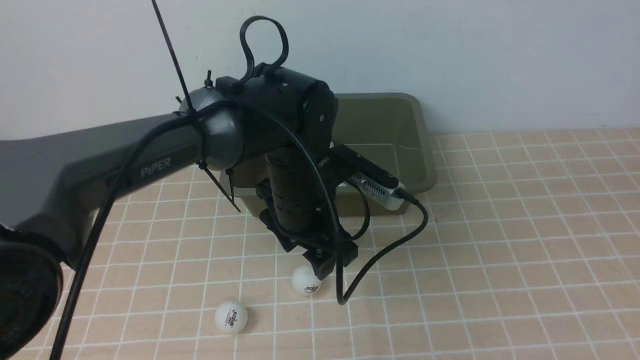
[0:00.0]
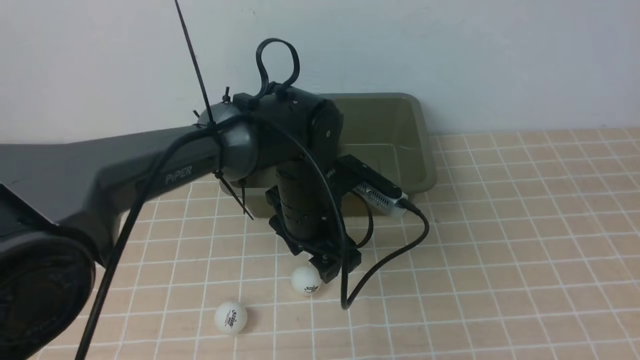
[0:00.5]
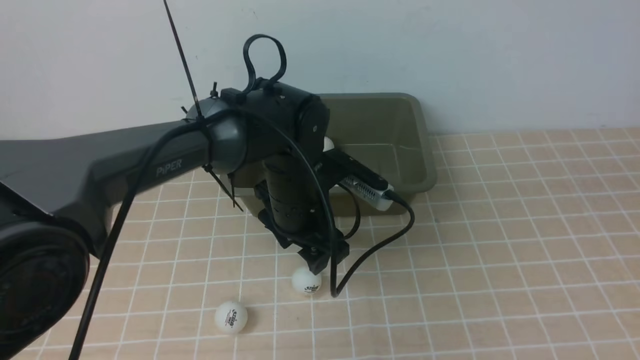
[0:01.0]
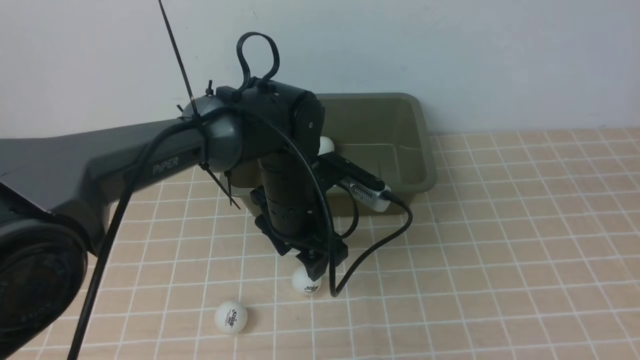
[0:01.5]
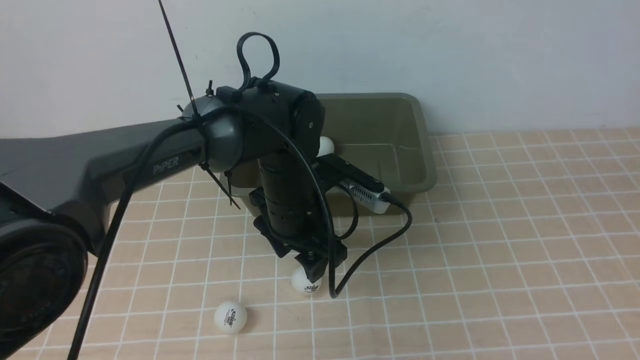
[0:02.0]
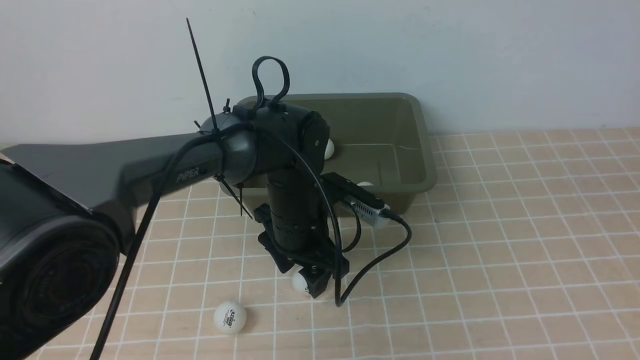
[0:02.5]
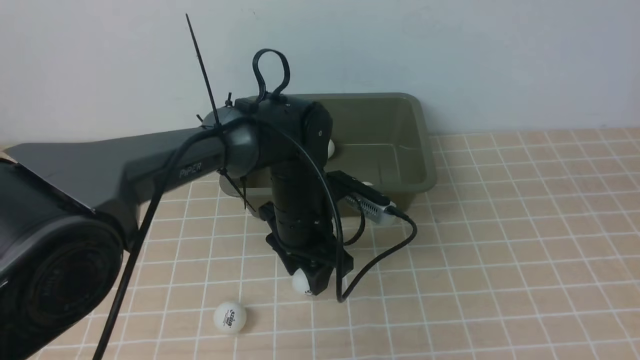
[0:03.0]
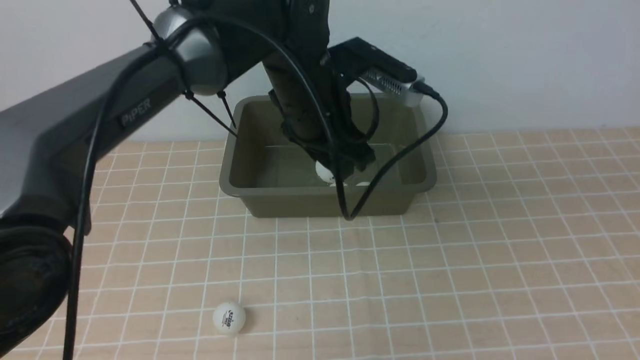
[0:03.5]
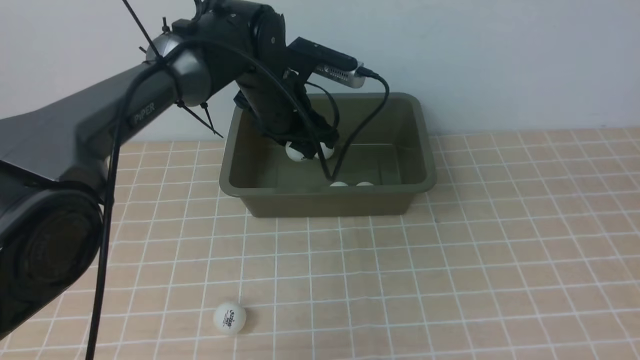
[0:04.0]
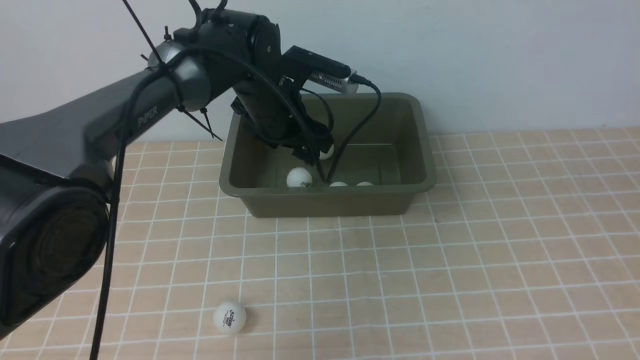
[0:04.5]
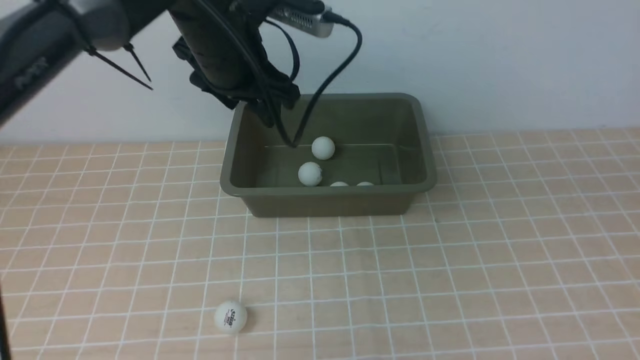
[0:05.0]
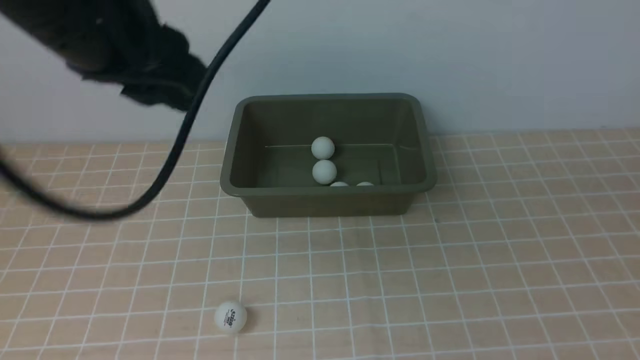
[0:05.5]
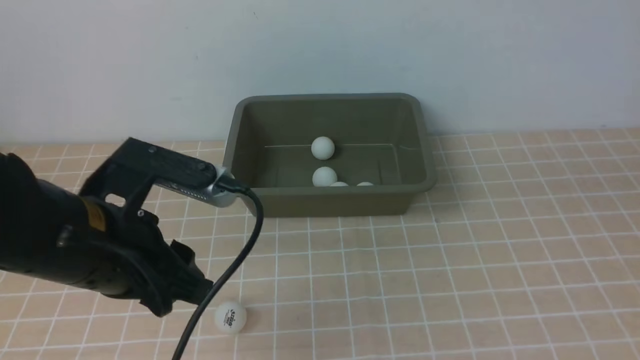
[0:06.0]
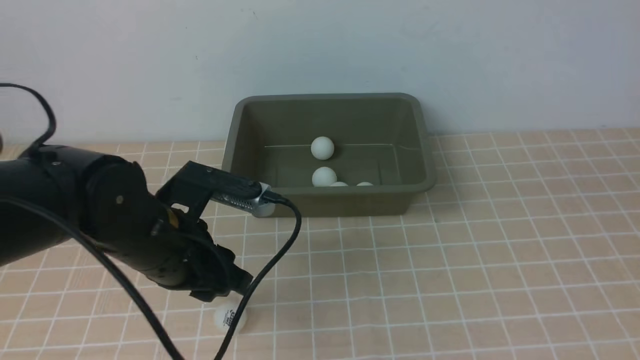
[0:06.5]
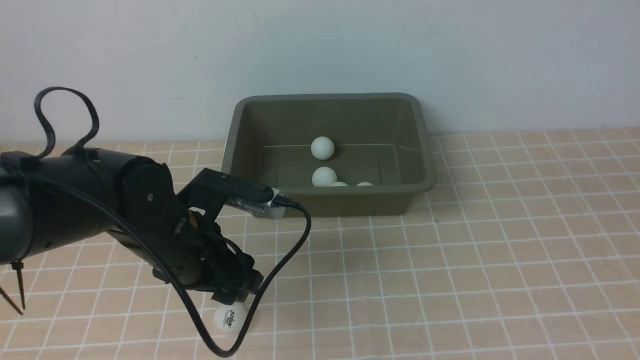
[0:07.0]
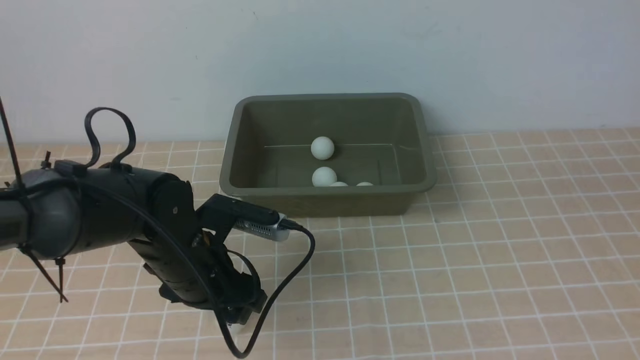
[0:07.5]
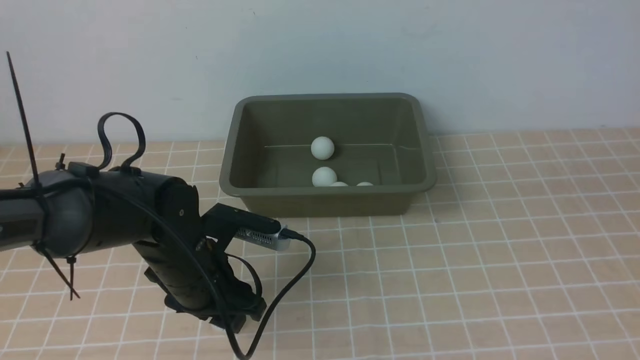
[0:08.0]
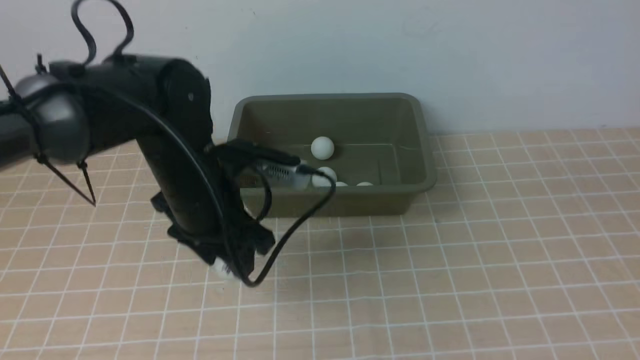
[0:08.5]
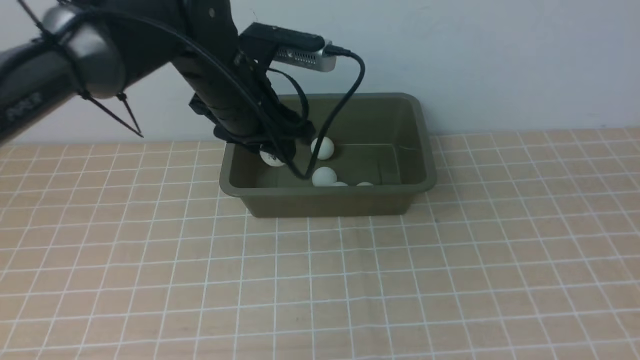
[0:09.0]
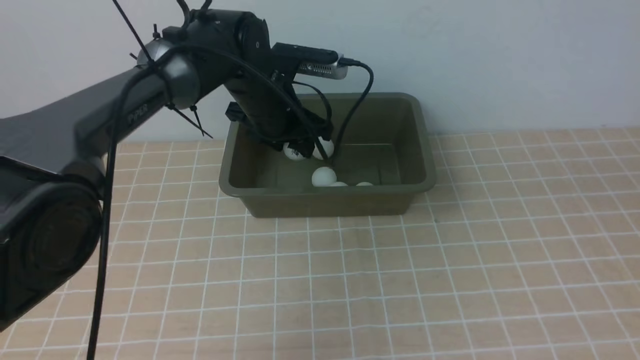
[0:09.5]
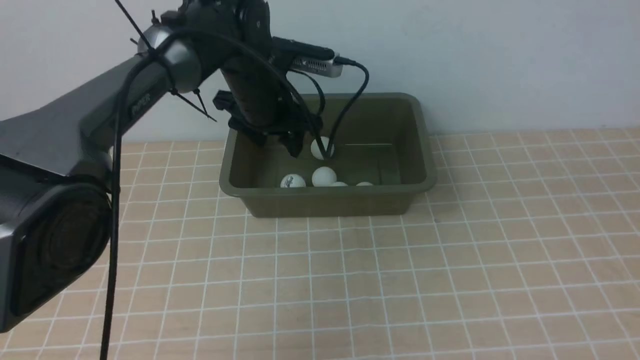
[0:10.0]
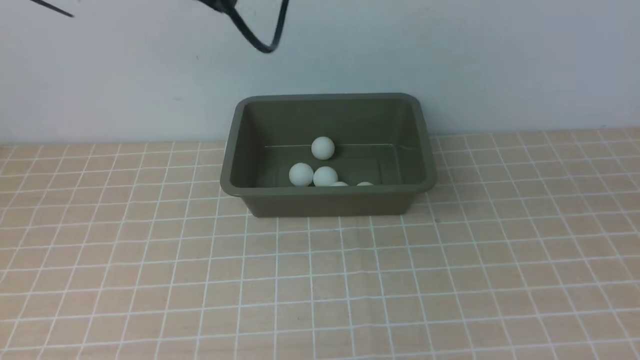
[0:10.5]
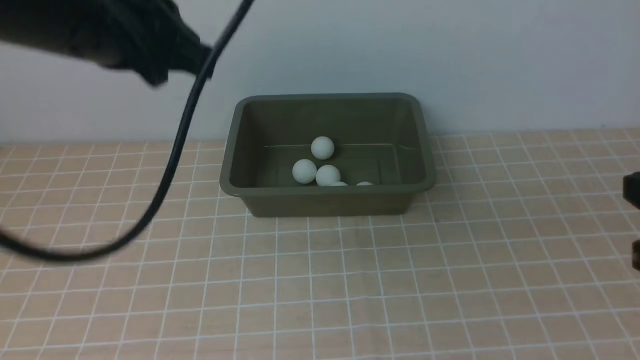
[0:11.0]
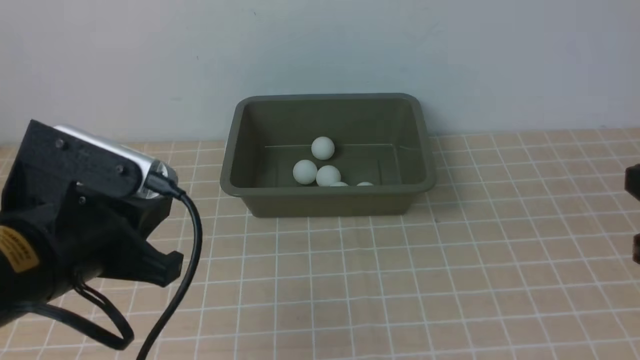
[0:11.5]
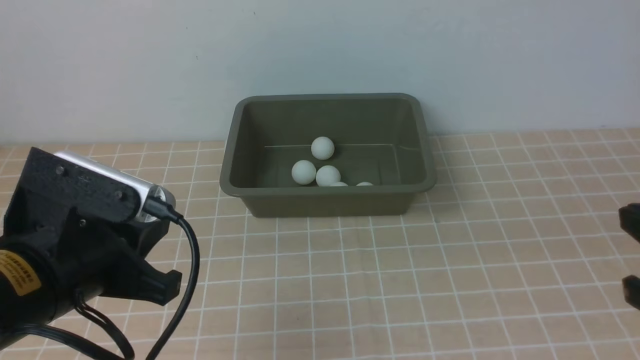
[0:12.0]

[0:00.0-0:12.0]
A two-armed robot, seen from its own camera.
Step, 0:00.0 to 0:03.0: use the left arm to clamp the table tennis ball closest to it.
Step, 0:03.5 to 0:04.5: use the left arm to put the table tennis ball into the box.
Step, 0:05.0 to 0:08.5: use the left arm to clamp the table tennis ball closest to it.
Step, 0:09.0 to 0:10.0: use the left arm to put the table tennis ball into the box.
0:00.0 to 0:02.0: There are only small adjustments of the grippers.
0:02.0 to 0:04.0: The left gripper shifts some 10 cm forward and upward.
0:04.0 to 0:06.0: The left gripper shifts about 25 cm backward and to the left.
0:06.0 to 0:08.0: The left gripper is displaced downward and forward by approximately 15 cm.
0:08.0 to 0:10.0: The left gripper goes some 20 cm forward and upward.
0:10.0 to 0:12.0: The right gripper shifts about 15 cm downward. Meanwhile the left gripper heads backward, covering approximately 30 cm, and closes its fingers.

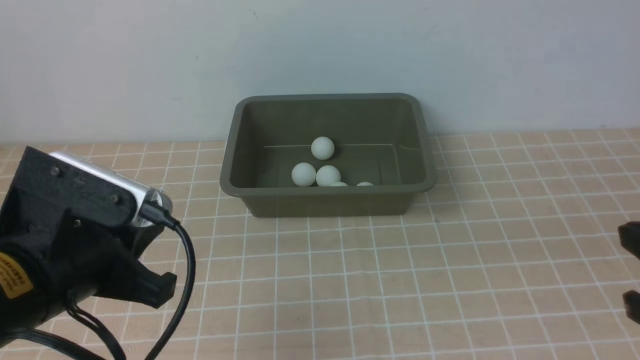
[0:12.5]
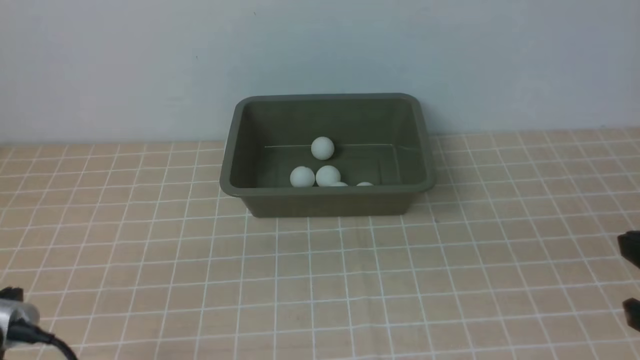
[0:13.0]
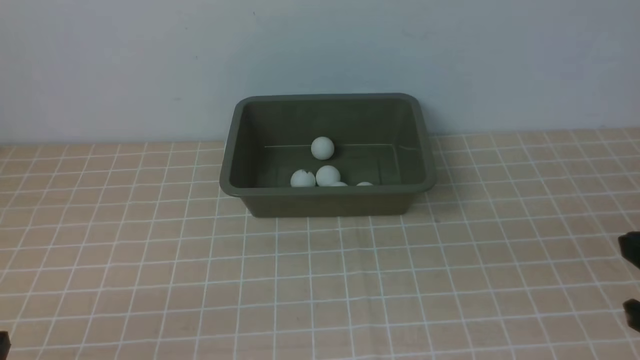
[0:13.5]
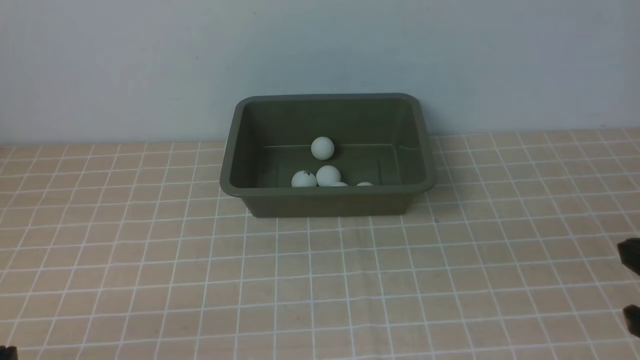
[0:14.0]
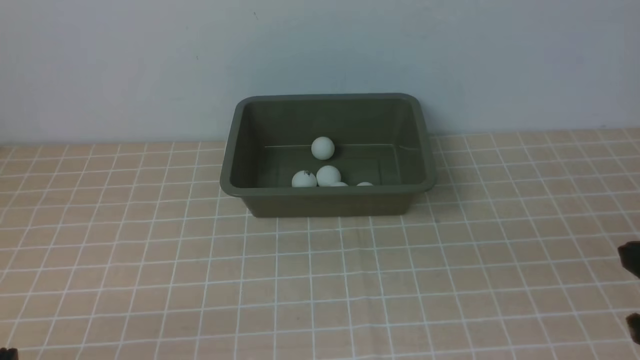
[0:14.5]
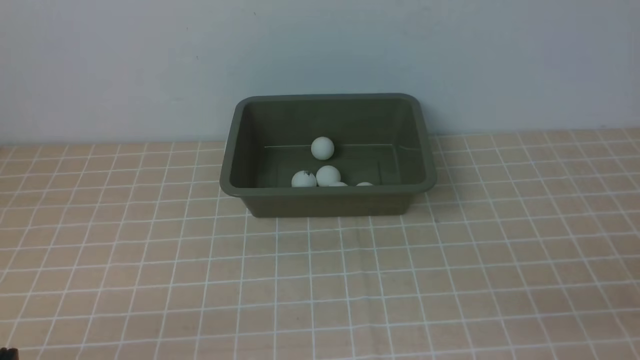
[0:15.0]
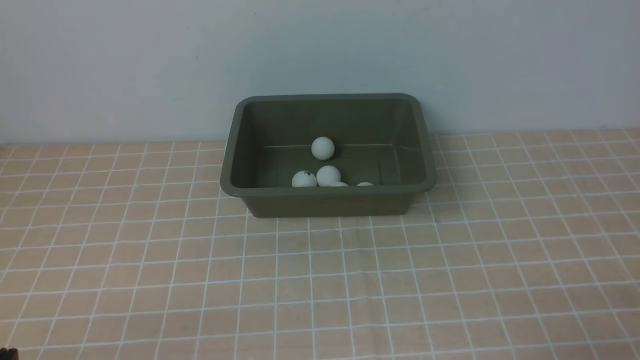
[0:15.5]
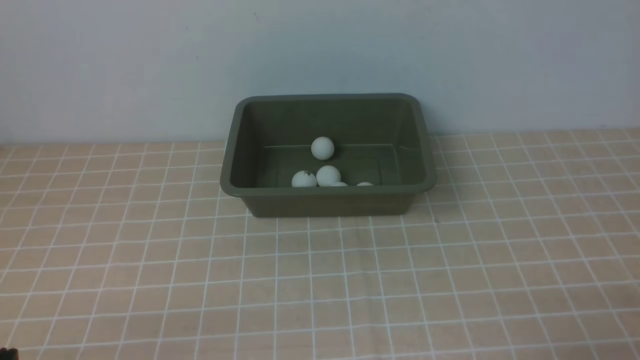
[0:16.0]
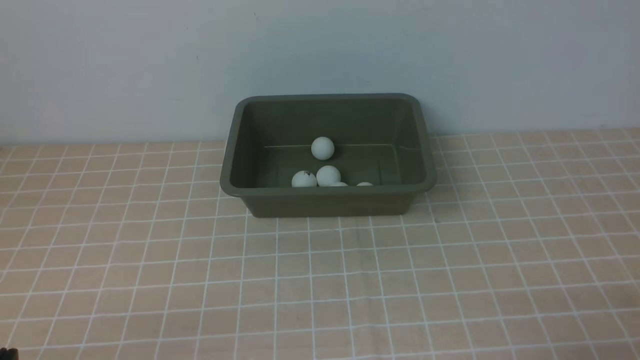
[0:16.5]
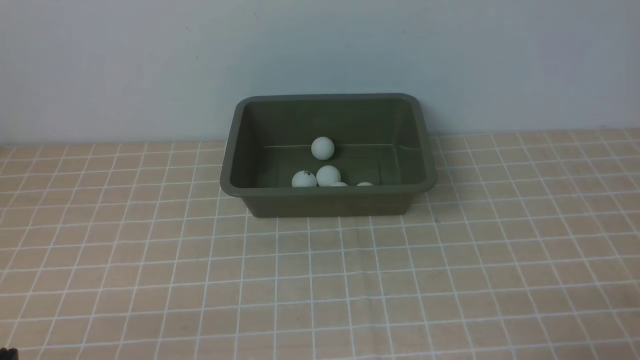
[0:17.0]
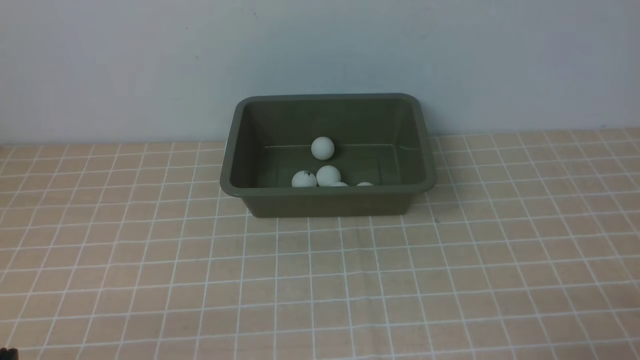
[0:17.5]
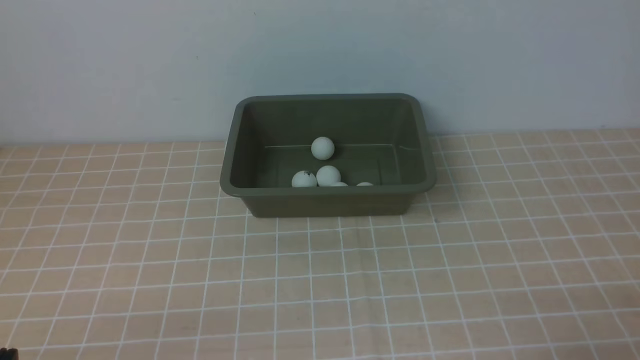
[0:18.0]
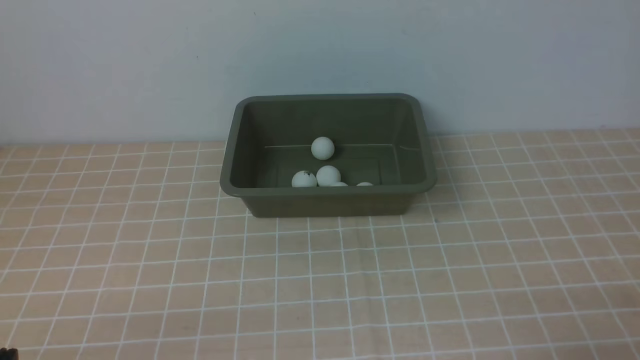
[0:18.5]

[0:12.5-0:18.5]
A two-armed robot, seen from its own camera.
0:12.5 to 0:14.5: The left gripper goes approximately 15 cm backward, downward and to the left.
0:16.5 to 0:18.5: Both grippers stay about where they are.

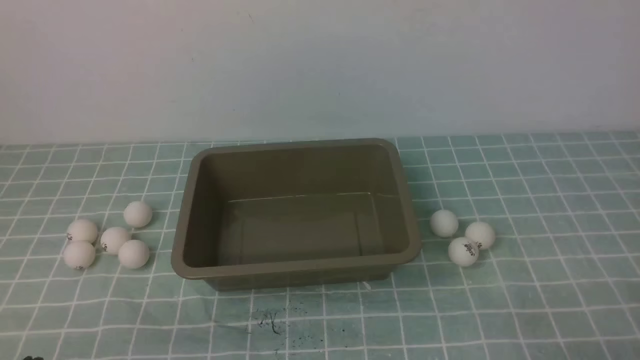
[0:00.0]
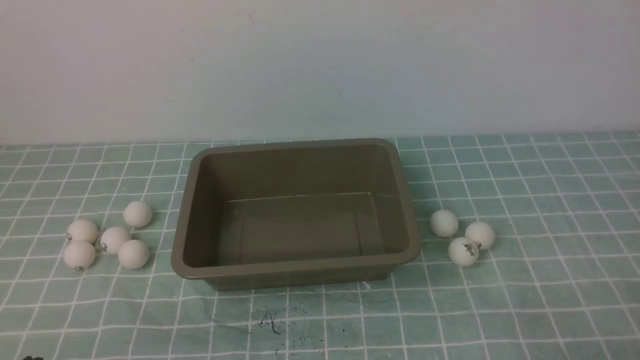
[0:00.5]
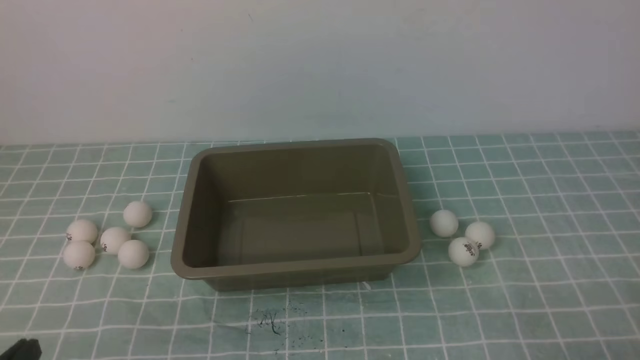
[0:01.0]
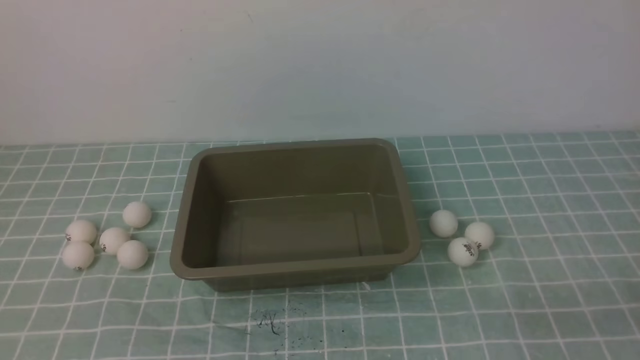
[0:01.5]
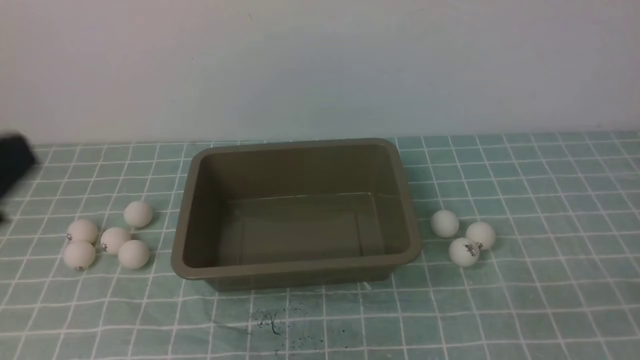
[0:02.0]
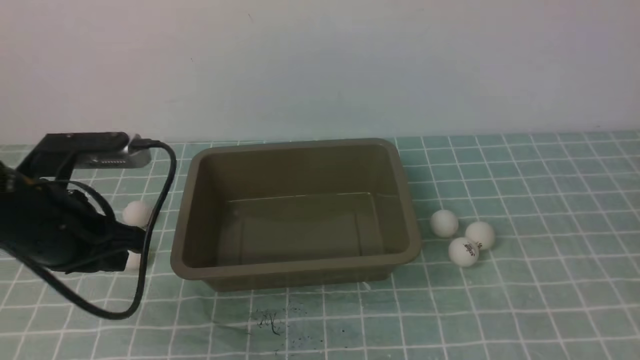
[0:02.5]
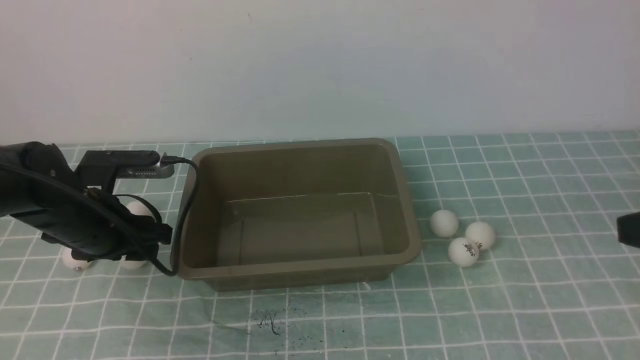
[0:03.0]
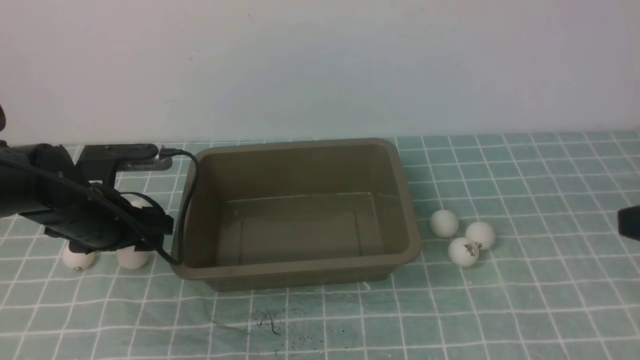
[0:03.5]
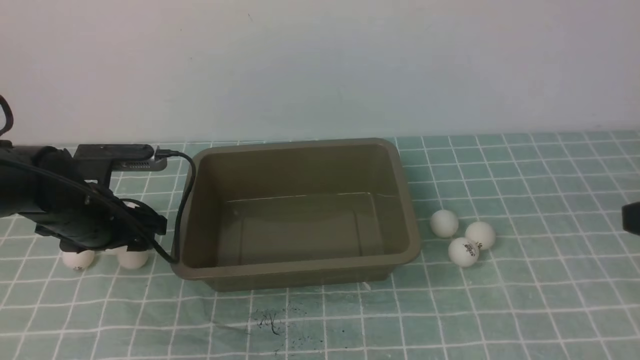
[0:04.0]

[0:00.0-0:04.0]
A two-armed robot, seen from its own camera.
0:00.0 to 0:02.0: The left gripper travels upward by roughly 20 cm.
0:02.0 to 0:04.0: The left gripper moves forward and downward, approximately 30 cm, and opens its fingers. Meanwhile the right gripper goes about 15 cm forward and upward.
